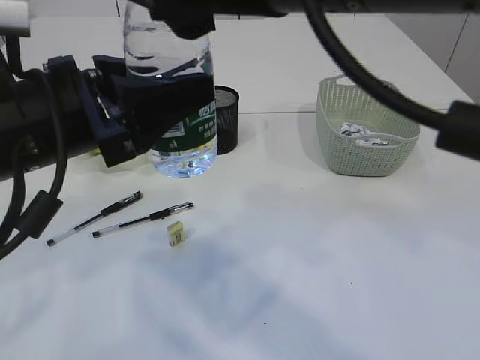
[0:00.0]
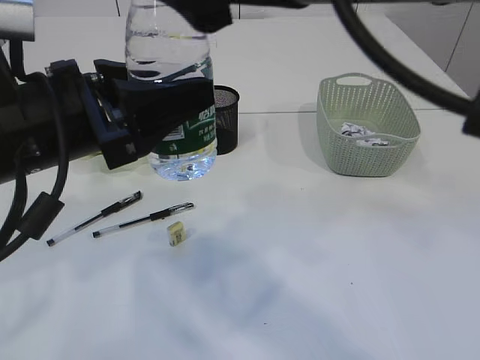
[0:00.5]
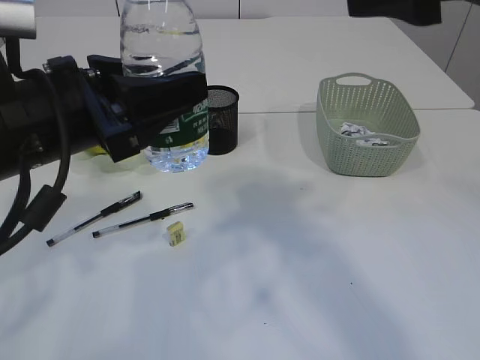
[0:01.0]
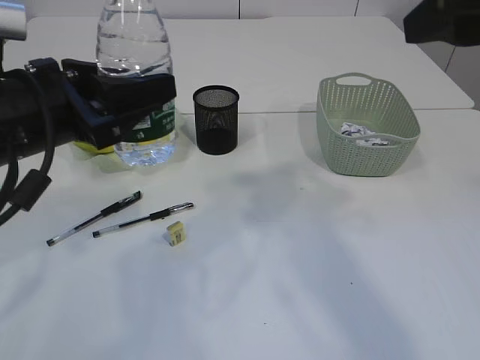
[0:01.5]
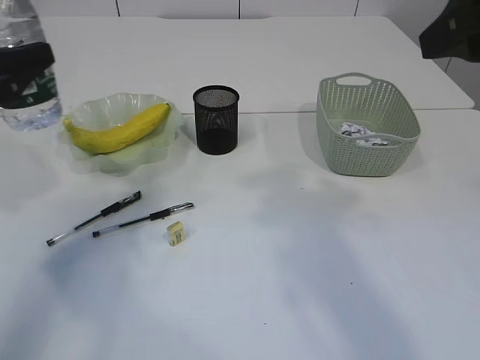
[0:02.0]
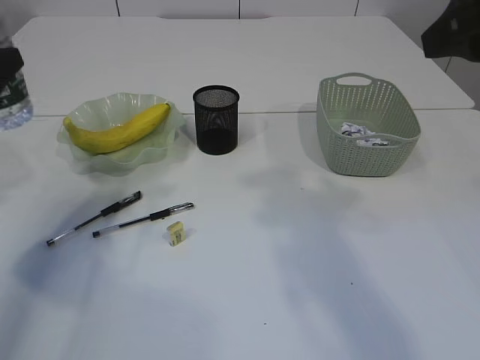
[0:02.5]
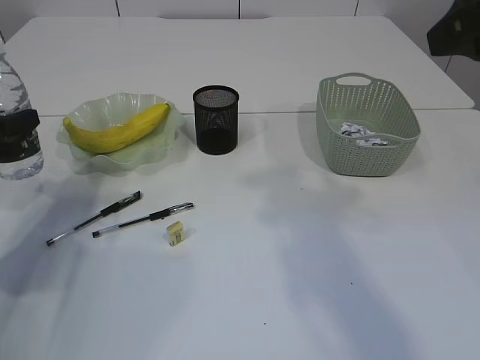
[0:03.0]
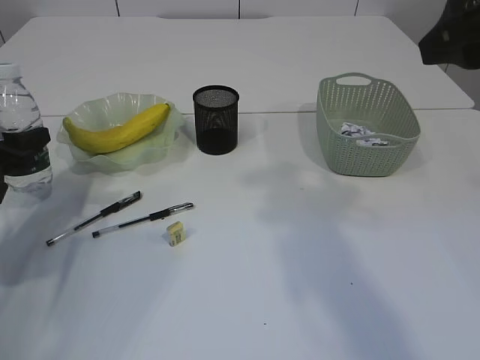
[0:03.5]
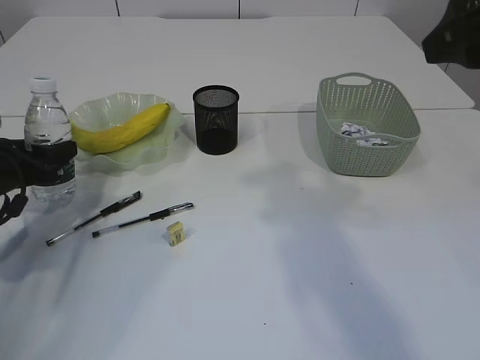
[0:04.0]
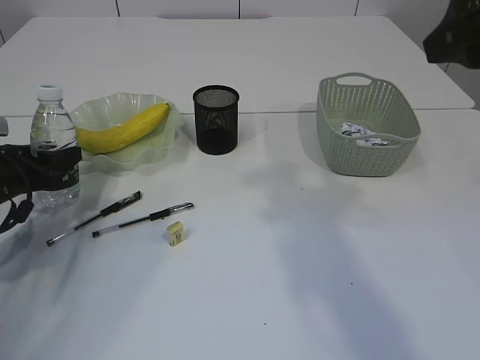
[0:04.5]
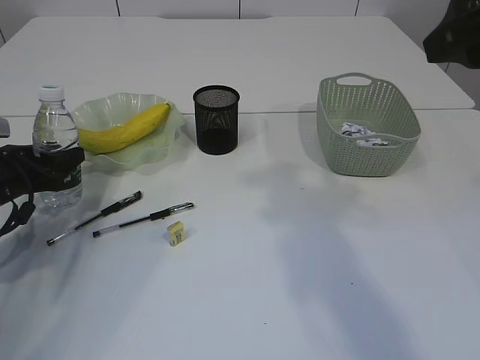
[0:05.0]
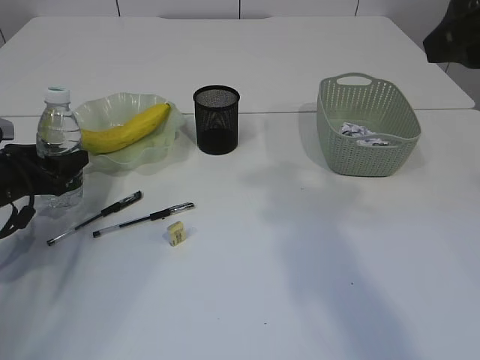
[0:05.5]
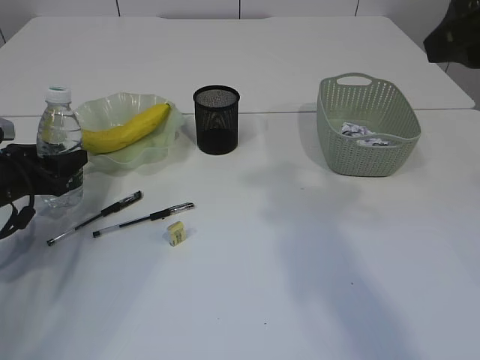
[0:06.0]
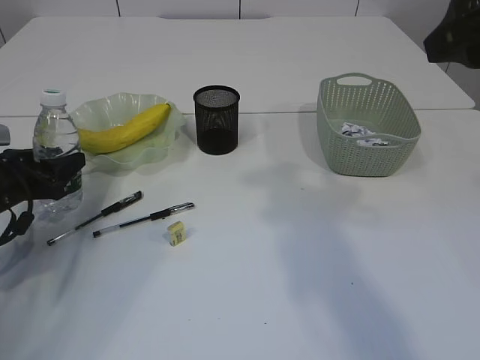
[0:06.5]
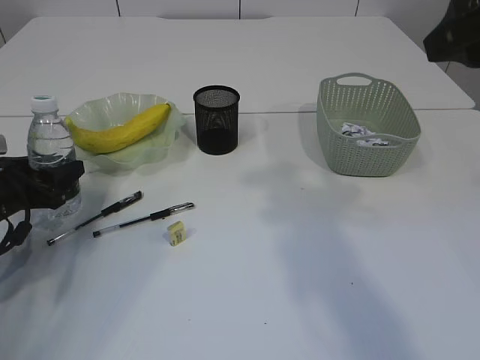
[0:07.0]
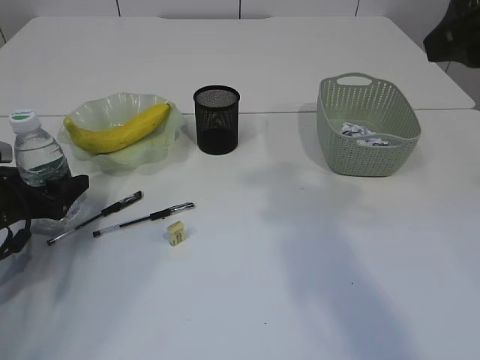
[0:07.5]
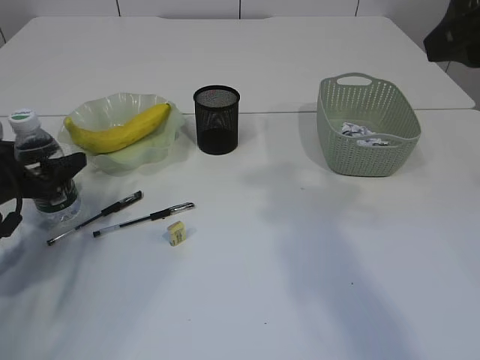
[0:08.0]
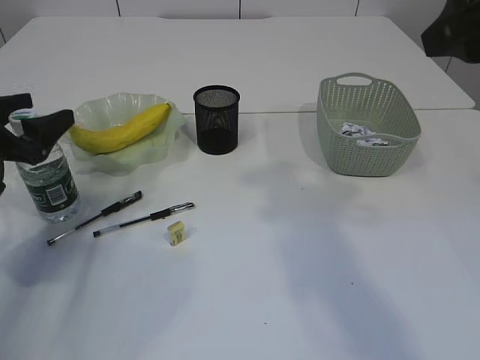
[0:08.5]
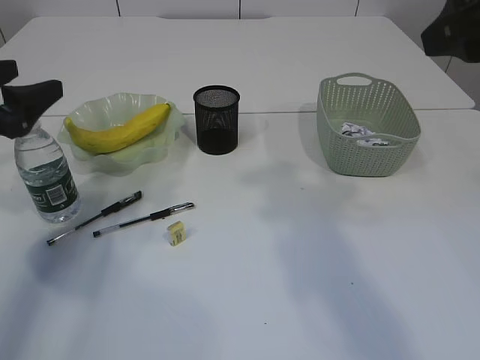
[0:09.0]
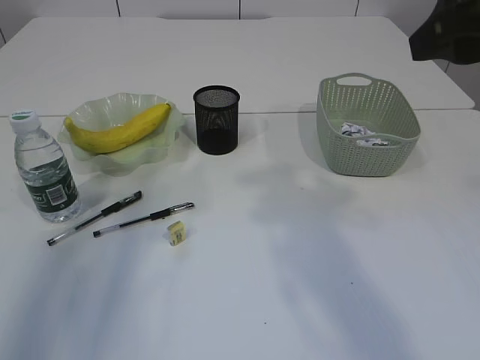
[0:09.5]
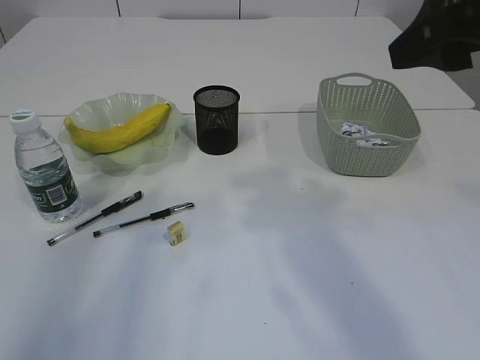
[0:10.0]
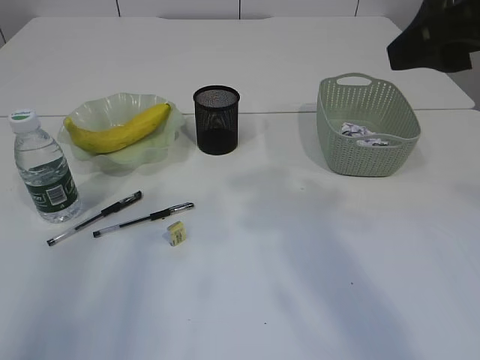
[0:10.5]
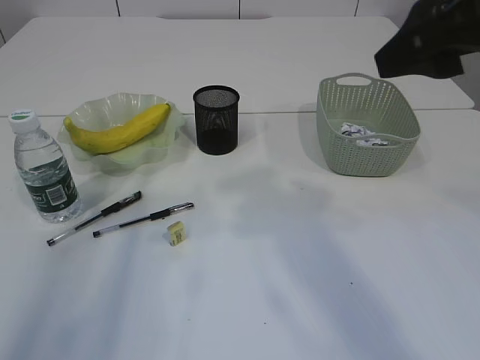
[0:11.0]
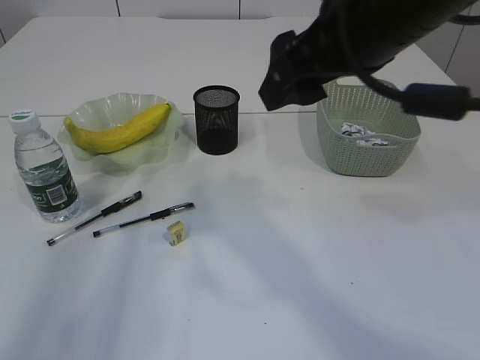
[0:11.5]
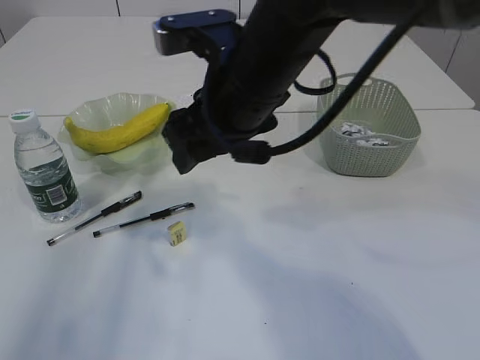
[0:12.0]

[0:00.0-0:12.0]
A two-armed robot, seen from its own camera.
Step, 0:01.0 to 0:09.0: Place the bottle.
0:00.0 to 0:02.0: The right gripper travels to the right by approximately 15 cm. Meanwhile the left gripper is displaced to the left and forward by about 15 cm.
0:02.0 to 0:04.0: The left gripper travels downward and forward by some 15 cm.
0:04.0 to 0:06.0: The grippers move only a little.
0:06.0 to 0:08.0: The left gripper opens.
0:08.0 to 0:10.0: The left gripper is displaced upward and backward by about 30 cm.
0:10.0 to 0:12.0: The right gripper heads to the left, downward and forward, covering about 20 cm.

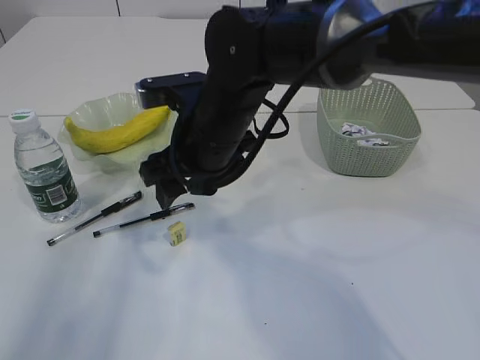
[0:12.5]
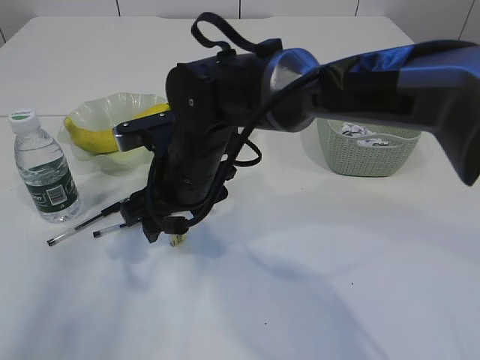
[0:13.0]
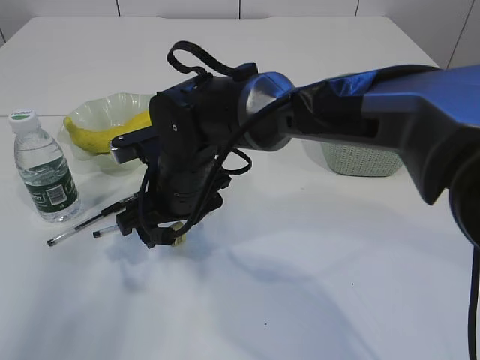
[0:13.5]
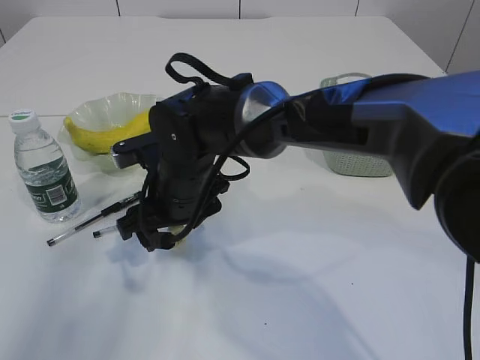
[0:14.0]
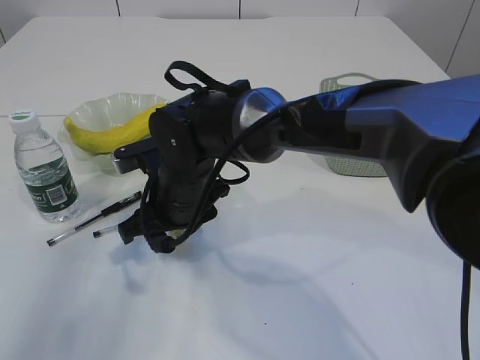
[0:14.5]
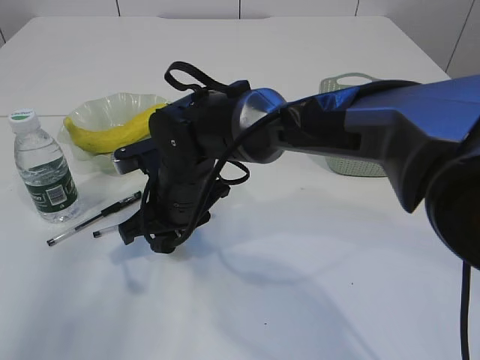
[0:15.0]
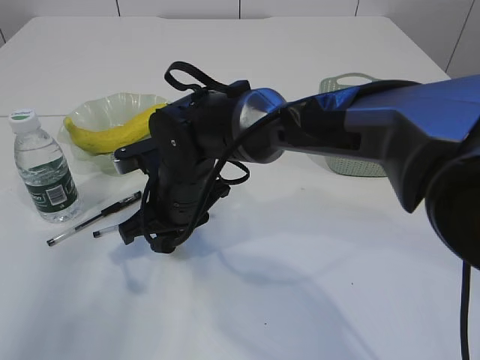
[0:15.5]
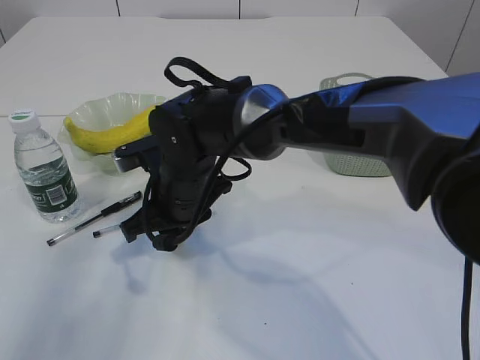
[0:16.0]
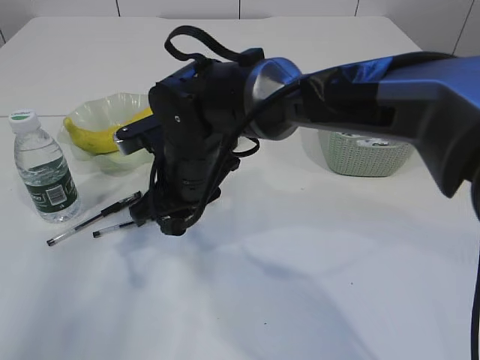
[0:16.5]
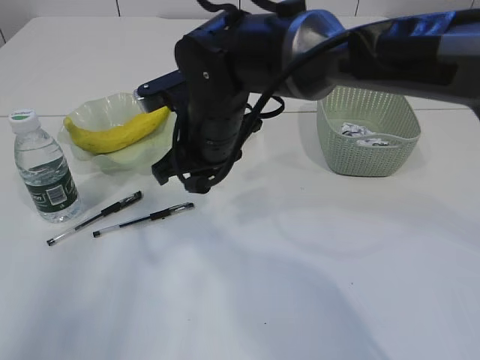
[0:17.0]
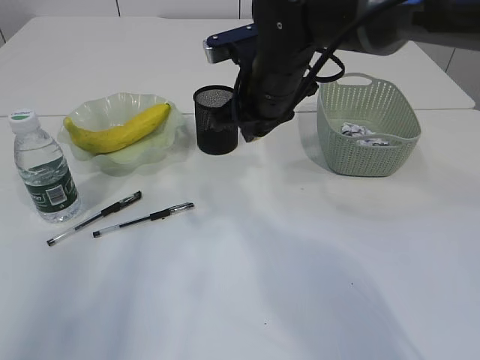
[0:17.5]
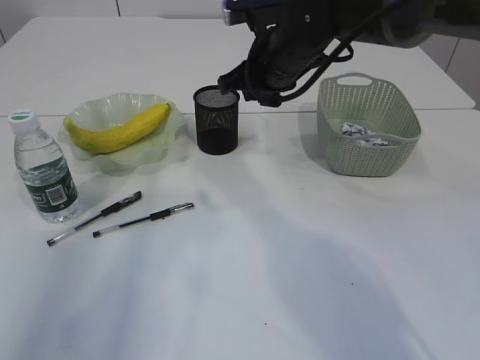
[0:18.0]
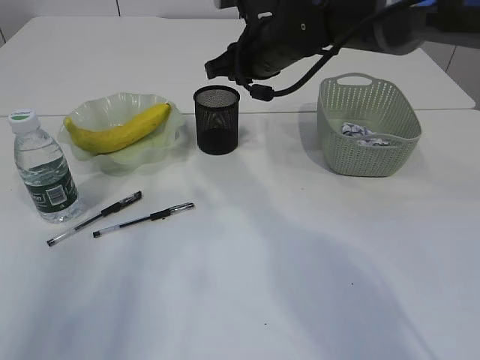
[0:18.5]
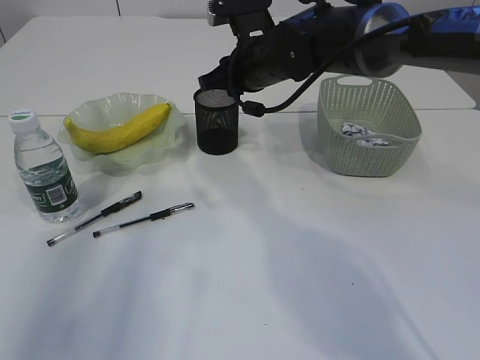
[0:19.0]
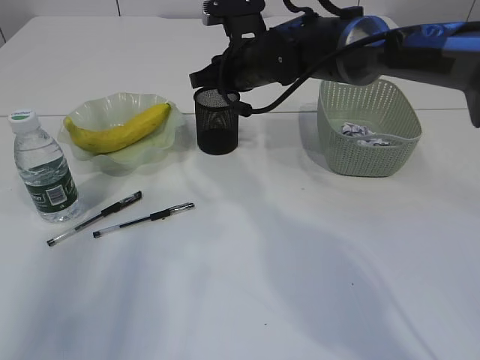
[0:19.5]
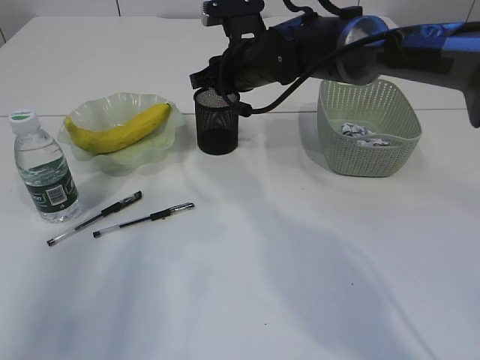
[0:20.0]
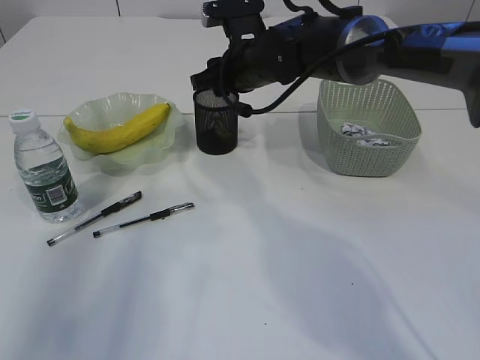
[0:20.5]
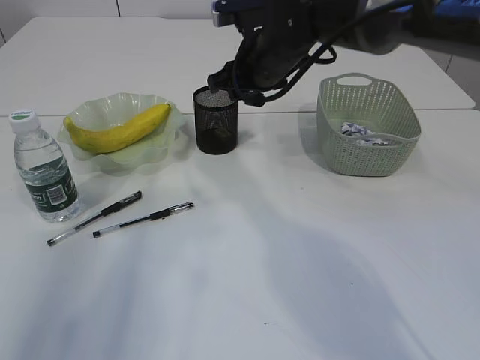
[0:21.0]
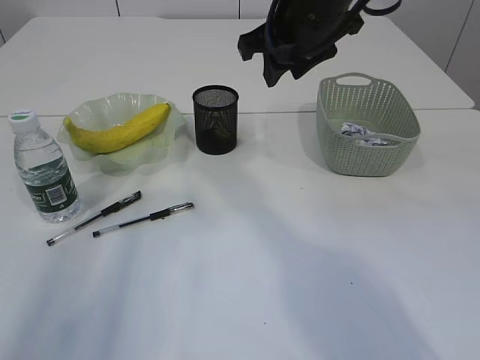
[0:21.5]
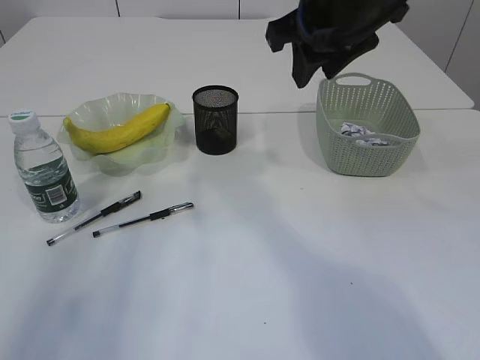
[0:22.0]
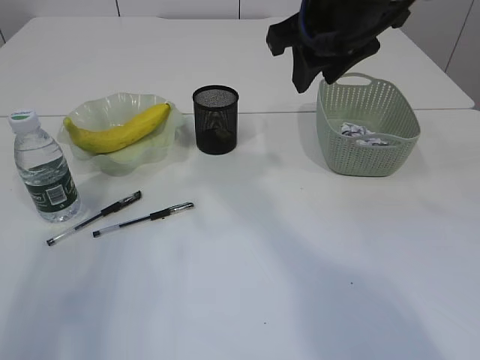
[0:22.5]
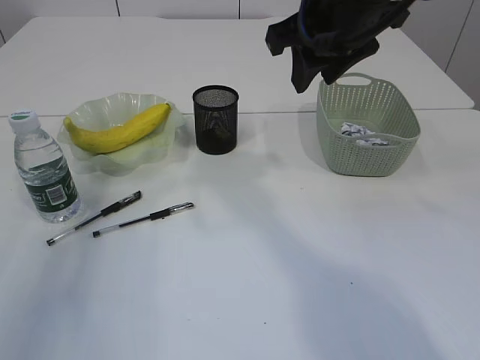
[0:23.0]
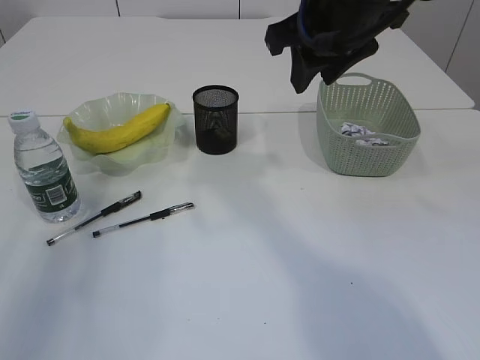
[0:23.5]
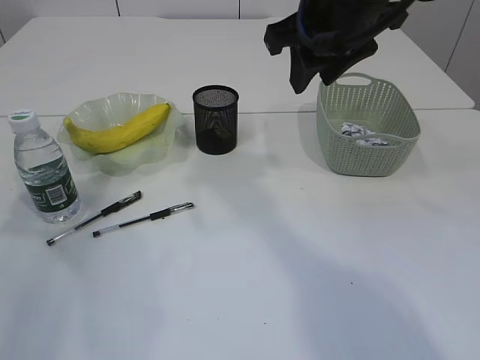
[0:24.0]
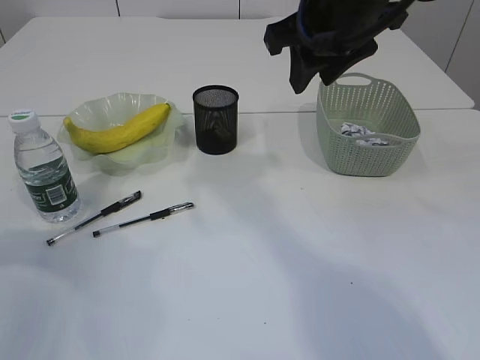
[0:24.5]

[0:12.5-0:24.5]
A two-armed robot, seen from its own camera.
Step, 0:12.5 to 0:16.5: Pick up the eraser.
Step, 0:17.0 to 0:21.0: Place the eraser into the pen holder.
0:12.5 to 0:14.5: The right gripper heads downward, covering approximately 10 cm.
0:14.5 to 0:16.5: The right gripper closes.
0:16.5 to 0:18.5: The right gripper shifts approximately 15 cm to the right, forward and upward.
0:18.5 to 0:20.5: There are only small adjustments of the grippers.
0:20.5 to 0:22.5: The right gripper goes roughly 20 cm upward, backward and to the right.
0:22.5 to 0:24.5: The left gripper moves downward, some 5 cm.

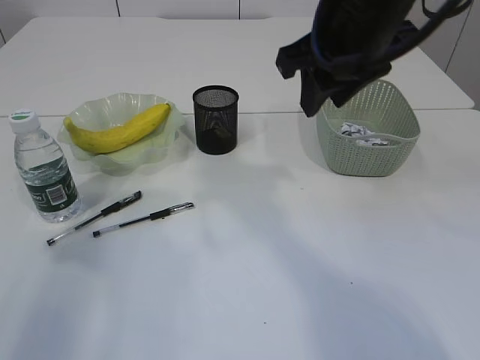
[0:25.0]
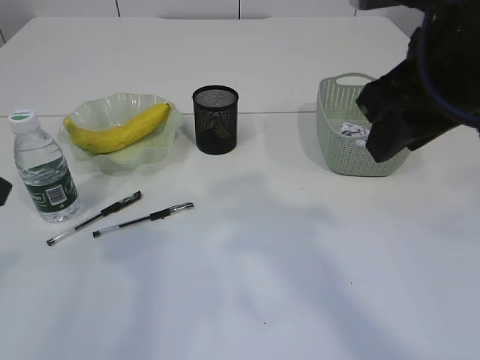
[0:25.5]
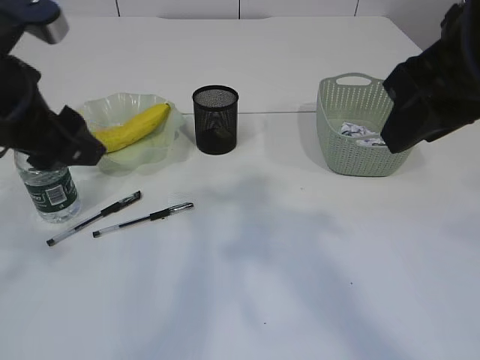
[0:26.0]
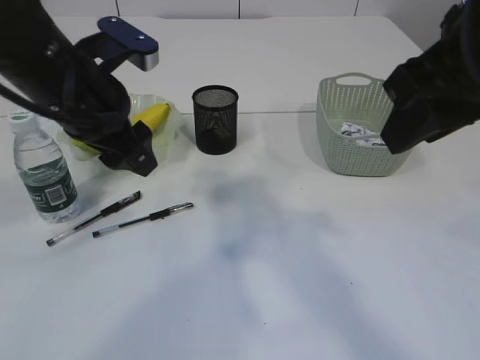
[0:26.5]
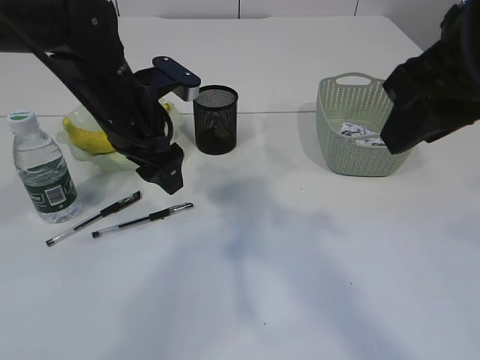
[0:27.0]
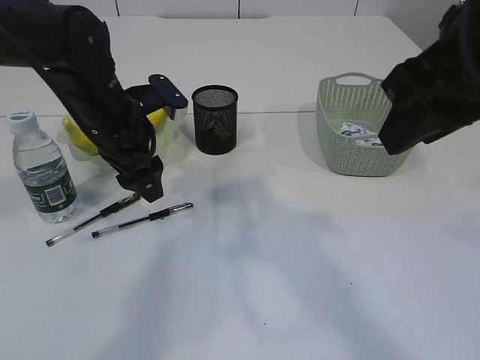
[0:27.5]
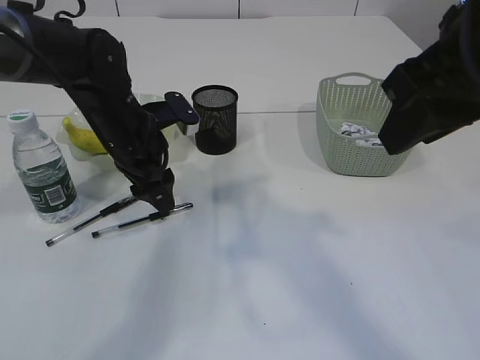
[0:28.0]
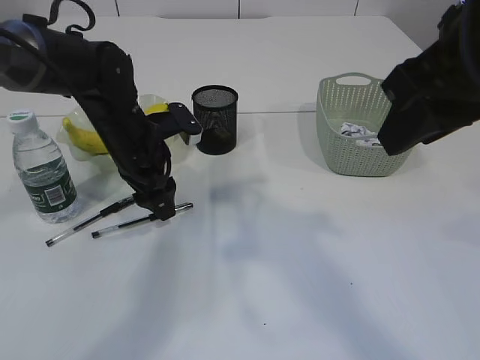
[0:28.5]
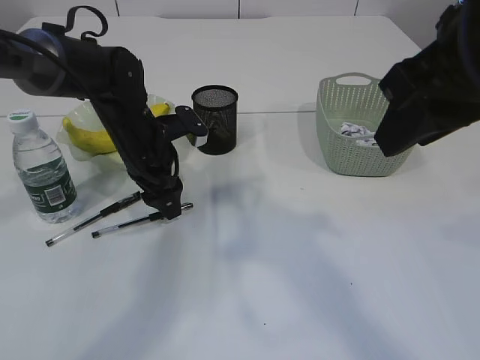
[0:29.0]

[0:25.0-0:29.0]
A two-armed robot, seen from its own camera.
0:25.0 to 0:27.0: The right gripper moves backward and to the right, roughly 10 cm; the left gripper is displaced to the right, forward and downward by approximately 25 cm.
0:27.0 to 0:29.0: The left gripper moves downward, some 10 cm.
